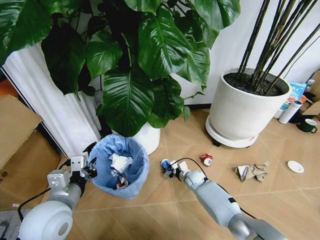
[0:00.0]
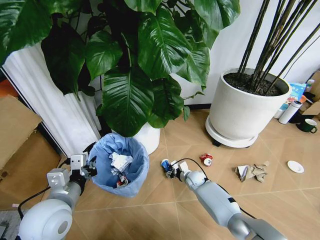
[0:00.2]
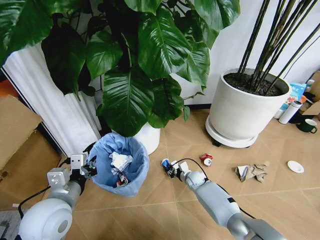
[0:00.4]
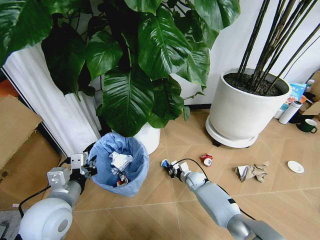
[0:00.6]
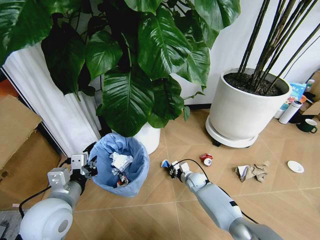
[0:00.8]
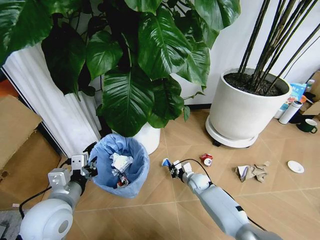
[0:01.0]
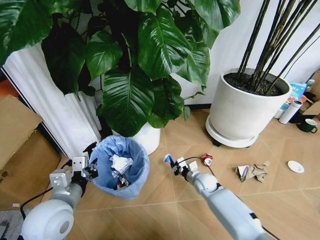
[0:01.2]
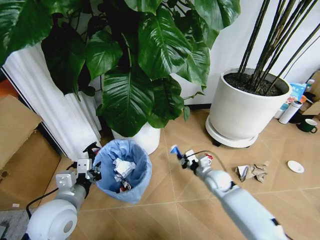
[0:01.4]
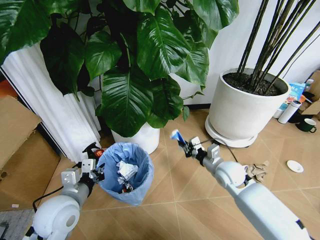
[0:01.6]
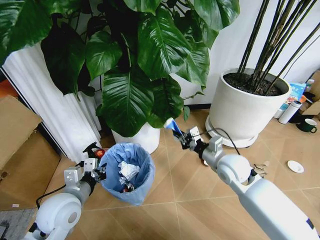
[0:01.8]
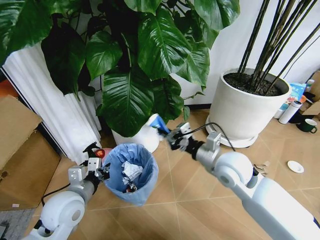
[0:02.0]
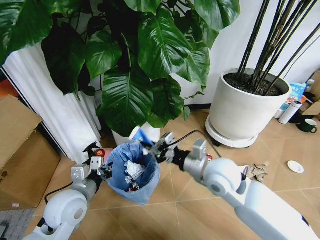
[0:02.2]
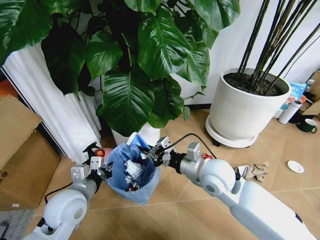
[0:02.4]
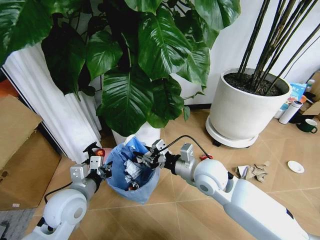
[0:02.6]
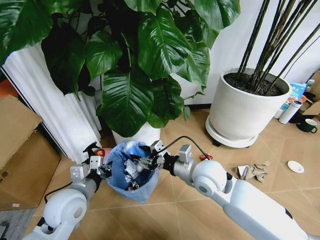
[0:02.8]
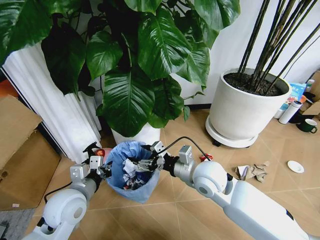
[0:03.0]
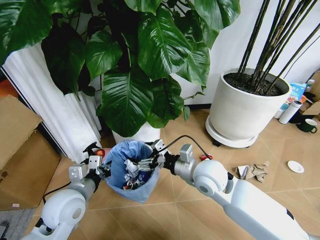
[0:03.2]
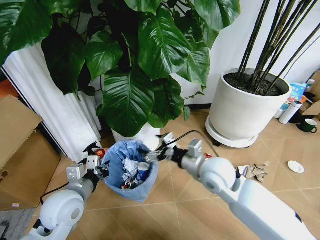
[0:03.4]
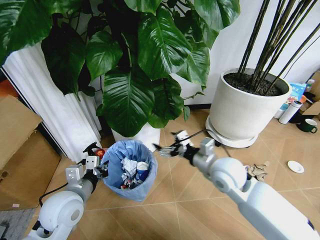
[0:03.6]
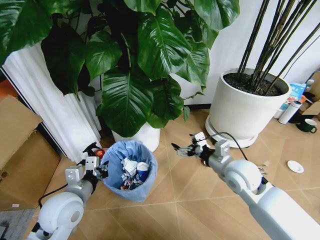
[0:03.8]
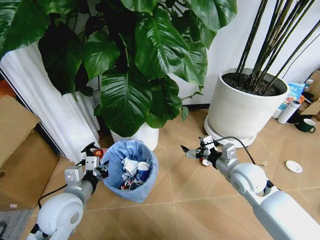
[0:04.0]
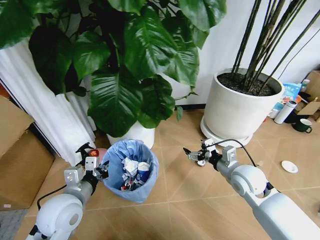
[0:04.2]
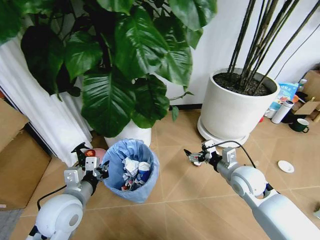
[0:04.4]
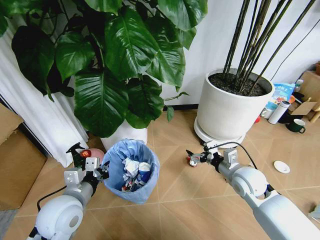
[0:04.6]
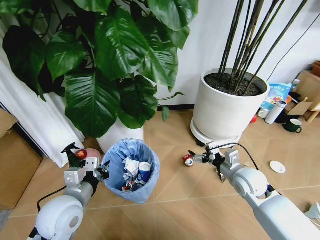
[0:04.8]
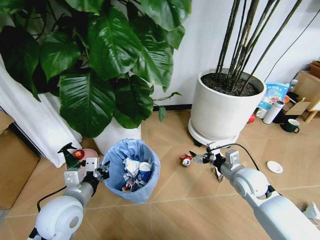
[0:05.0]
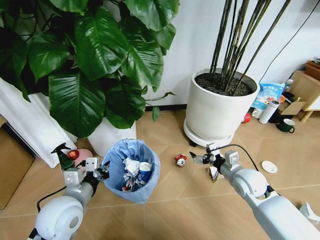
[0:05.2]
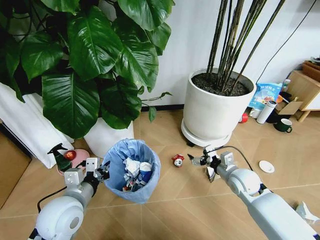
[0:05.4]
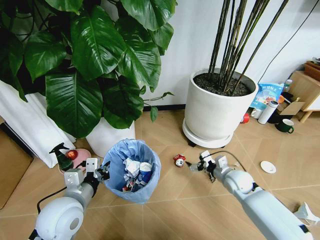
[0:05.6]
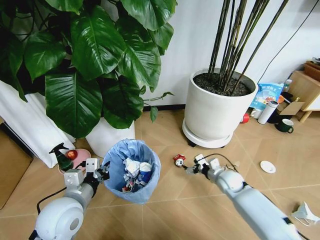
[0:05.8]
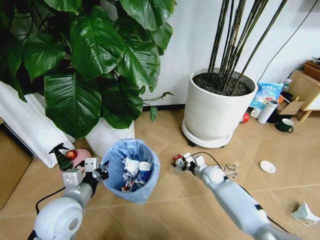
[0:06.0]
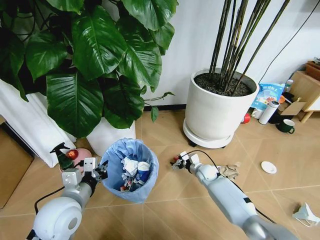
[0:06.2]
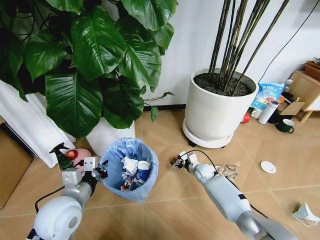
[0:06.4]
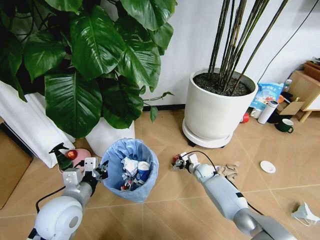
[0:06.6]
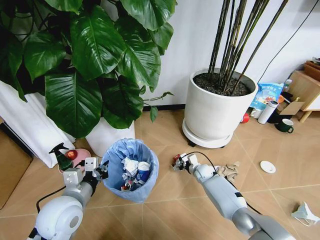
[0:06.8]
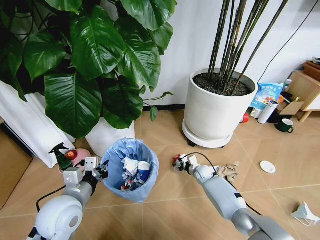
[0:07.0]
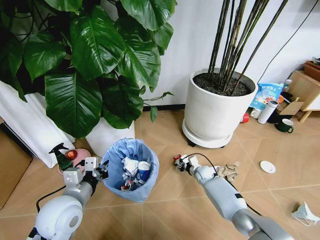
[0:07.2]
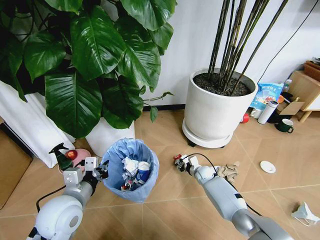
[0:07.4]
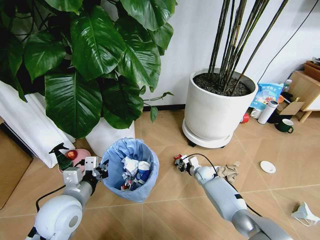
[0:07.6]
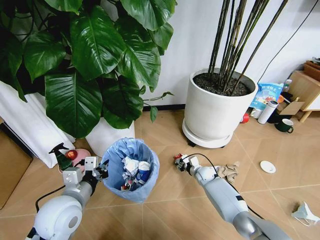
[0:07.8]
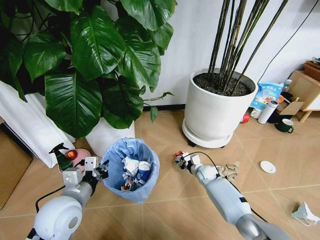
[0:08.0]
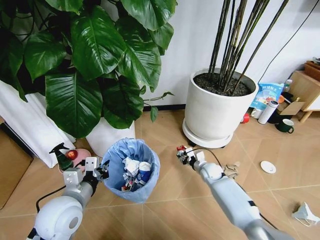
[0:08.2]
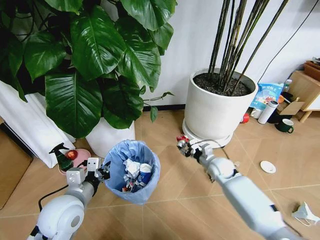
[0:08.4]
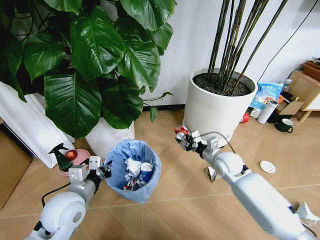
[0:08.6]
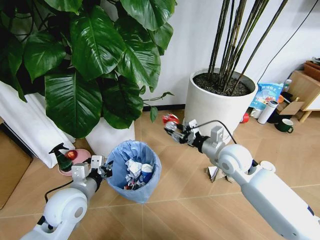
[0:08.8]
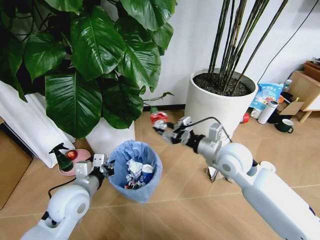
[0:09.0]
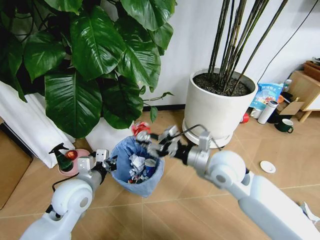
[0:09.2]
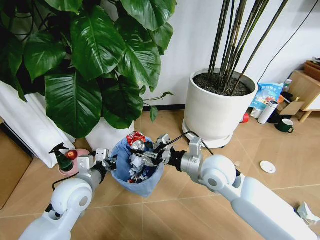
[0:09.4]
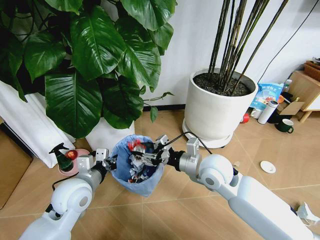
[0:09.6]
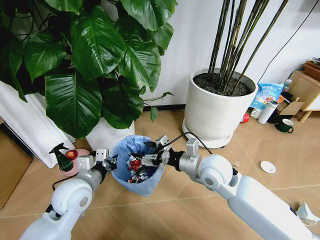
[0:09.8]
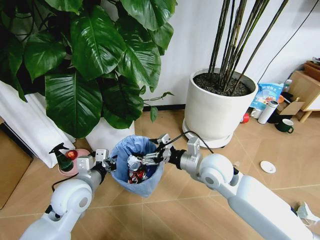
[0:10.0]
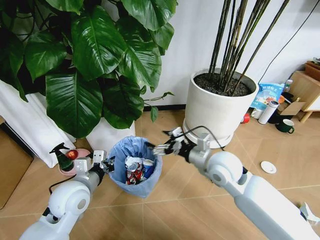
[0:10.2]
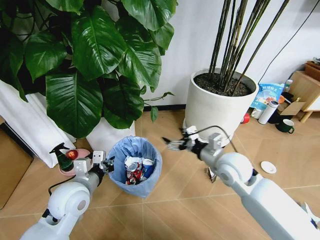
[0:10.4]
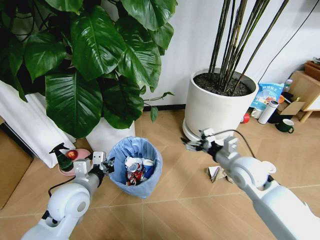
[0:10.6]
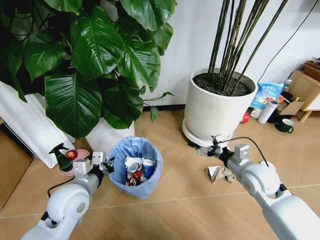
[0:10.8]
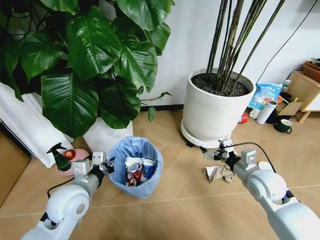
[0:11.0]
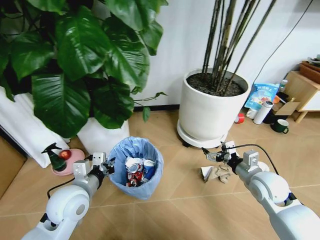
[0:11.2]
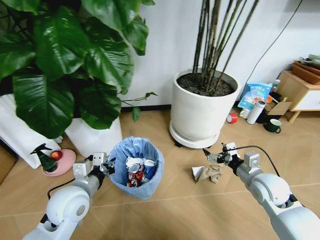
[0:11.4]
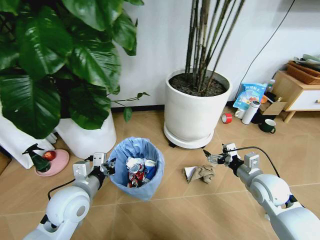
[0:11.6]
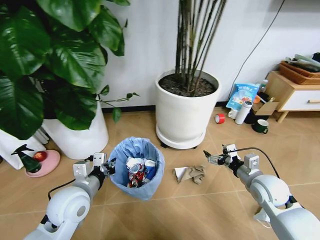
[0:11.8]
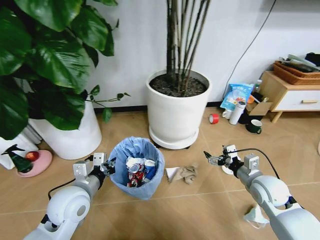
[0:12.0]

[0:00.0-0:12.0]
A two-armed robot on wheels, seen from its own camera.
Task of the whole recording: Pick up the trash bin and place the garbage on the floor into it.
0:00.0 to 0:01.6: The right gripper travels upward by roughly 20 cm, and closes.
0:01.6 to 0:03.0: The right gripper goes approximately 15 cm to the left, upward and backward, and opens.
0:03.0 to 0:04.4: The right gripper goes about 15 cm to the right.
0:04.4 to 0:06.0: The right gripper heads downward and forward, covering some 20 cm.
0:06.0 to 0:07.6: The right gripper moves downward, roughly 5 cm, and closes up.
0:07.6 to 0:09.0: The right gripper is displaced upward by approximately 35 cm.
0:09.0 to 0:10.4: The right gripper opens its fingers.
0:10.4 to 0:12.0: The right gripper is displaced to the right and downward by approximately 15 cm.

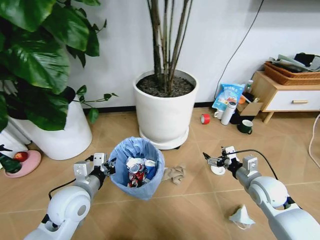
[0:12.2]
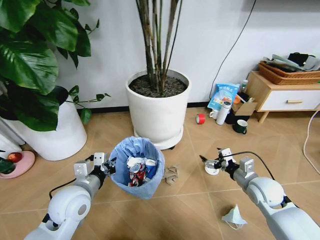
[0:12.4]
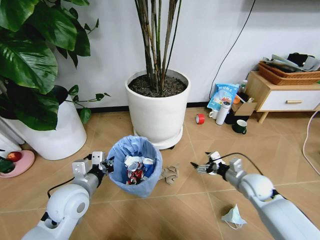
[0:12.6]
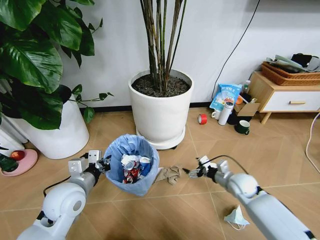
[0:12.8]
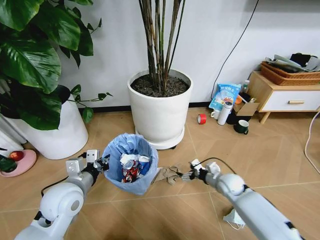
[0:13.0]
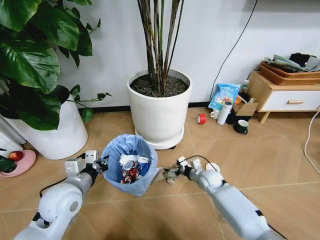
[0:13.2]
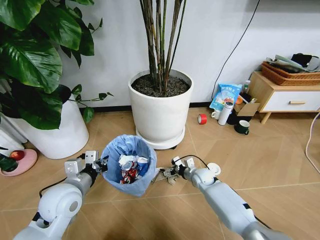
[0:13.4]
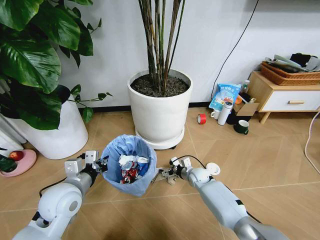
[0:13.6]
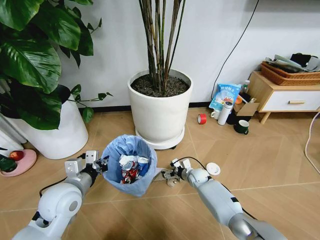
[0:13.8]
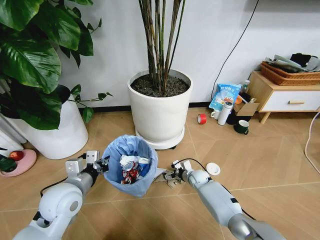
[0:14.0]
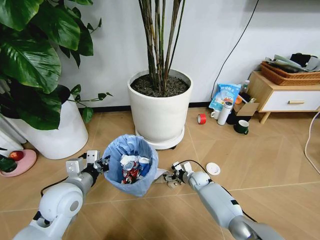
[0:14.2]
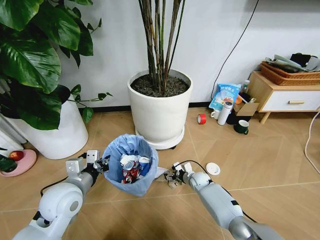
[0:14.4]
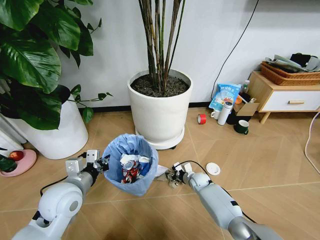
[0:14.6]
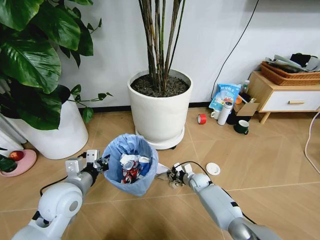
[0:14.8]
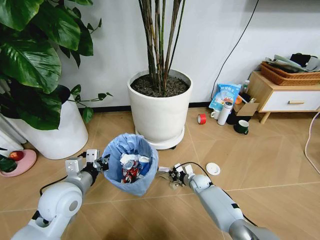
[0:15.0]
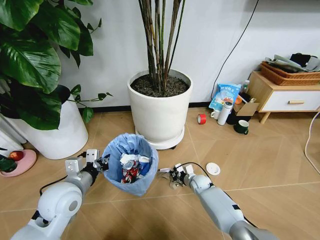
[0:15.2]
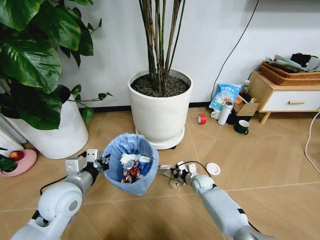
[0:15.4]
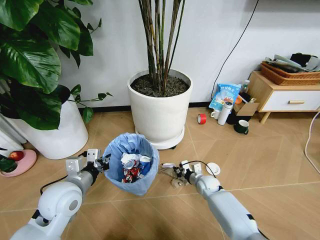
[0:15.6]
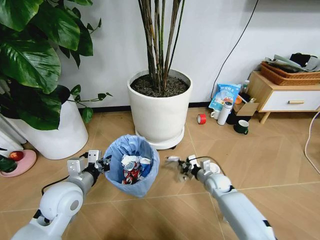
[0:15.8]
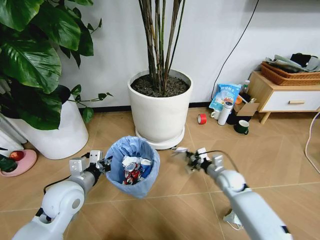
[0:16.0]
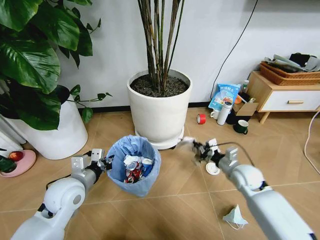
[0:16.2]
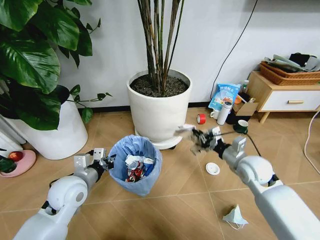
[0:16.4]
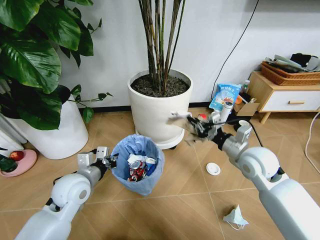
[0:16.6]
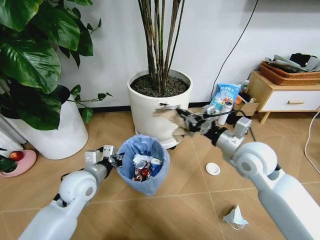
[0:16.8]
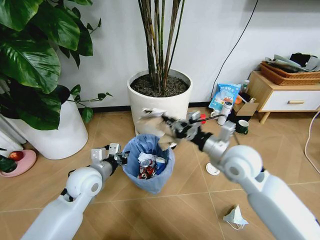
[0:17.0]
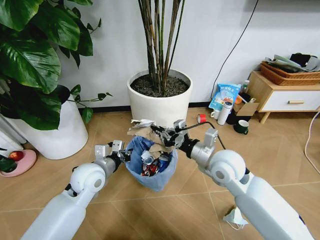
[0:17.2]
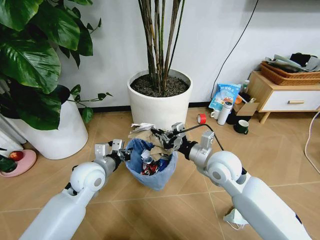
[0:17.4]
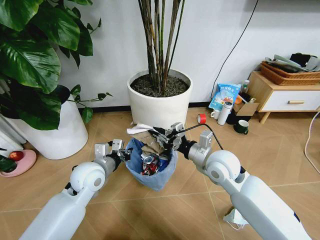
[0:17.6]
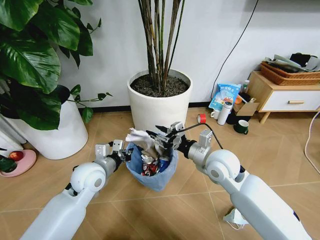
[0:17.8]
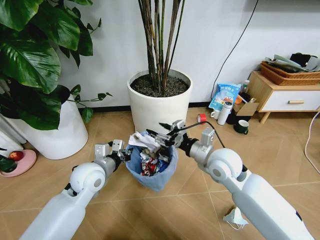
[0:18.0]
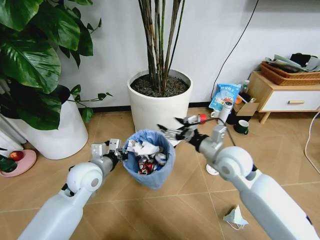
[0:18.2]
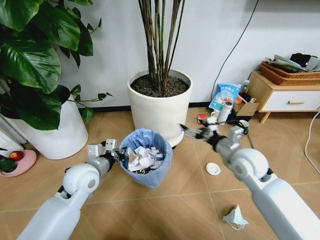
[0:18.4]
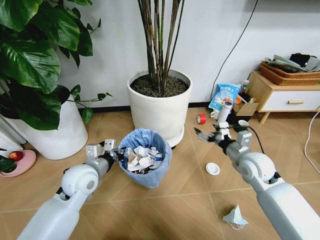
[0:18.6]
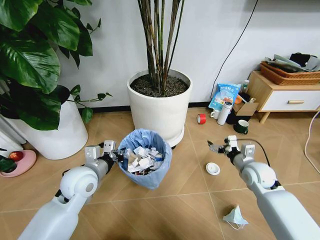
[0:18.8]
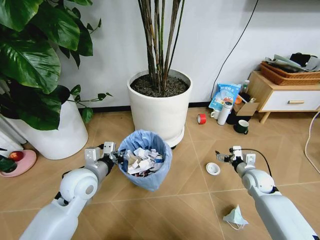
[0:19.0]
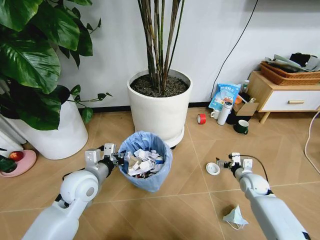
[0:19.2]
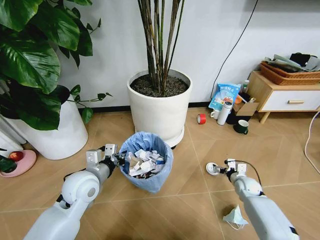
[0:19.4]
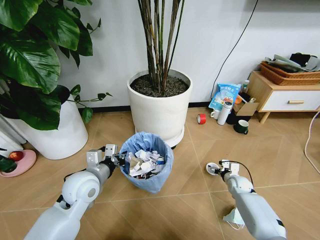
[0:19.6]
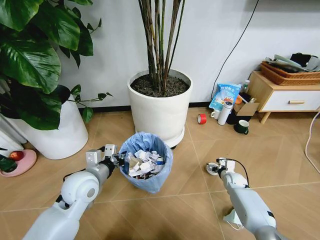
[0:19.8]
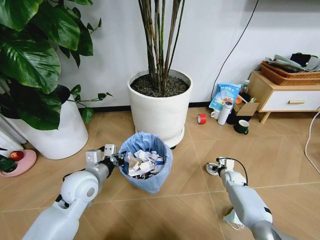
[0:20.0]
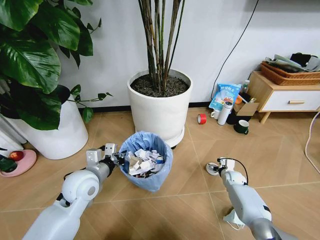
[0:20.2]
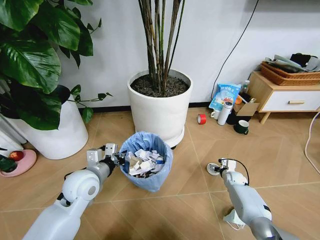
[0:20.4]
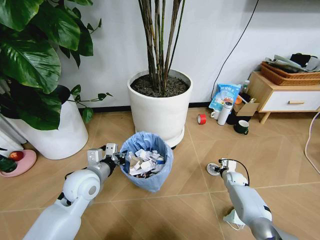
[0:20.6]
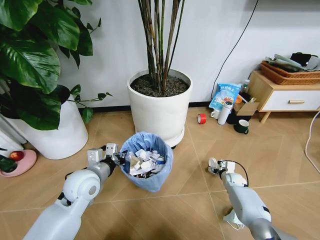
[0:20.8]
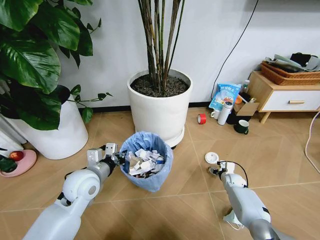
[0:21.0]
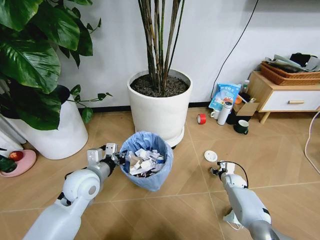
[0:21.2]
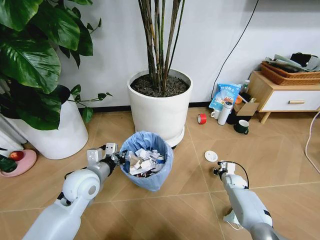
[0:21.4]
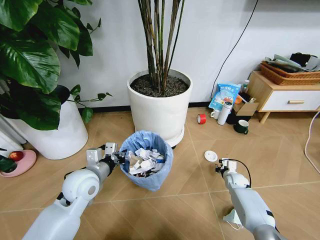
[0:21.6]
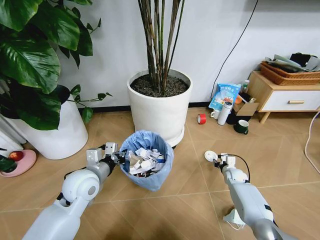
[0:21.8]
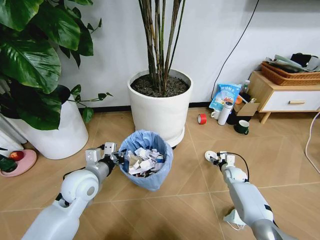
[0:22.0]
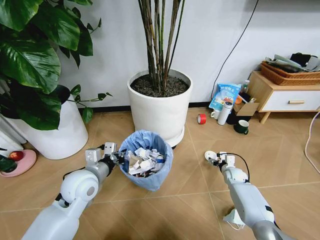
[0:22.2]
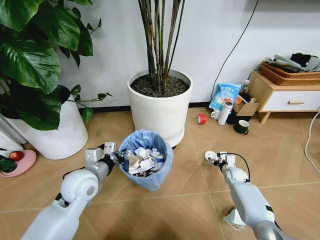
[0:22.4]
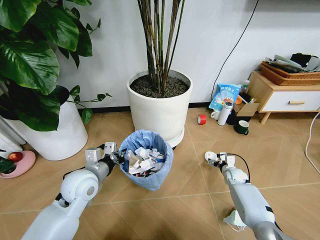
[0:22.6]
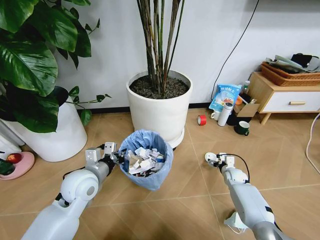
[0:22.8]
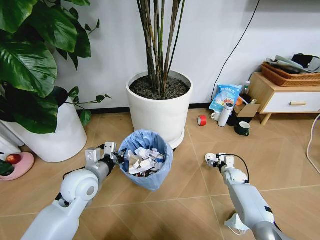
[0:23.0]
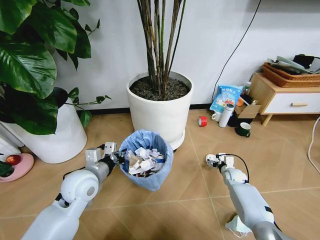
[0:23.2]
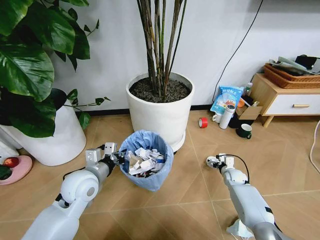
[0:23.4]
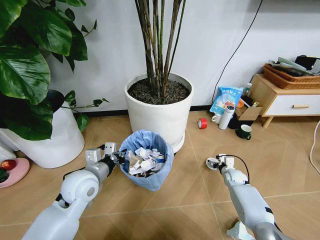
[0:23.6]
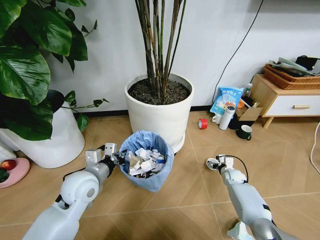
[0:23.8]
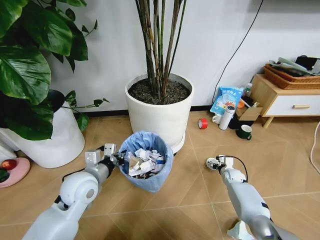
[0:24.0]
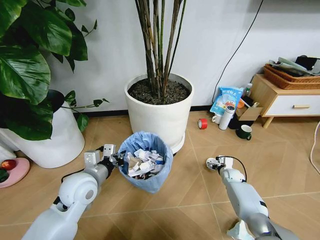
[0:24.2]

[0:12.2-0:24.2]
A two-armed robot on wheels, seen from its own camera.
Task of the whole recording: Pick up the trash bin and place the garbage on the floor into it.
0:12.2 to 0:13.8: The right gripper moves downward, to the left and forward, about 30 cm.
0:13.8 to 0:15.2: The right gripper closes its fingers.
0:15.2 to 0:16.6: The right gripper shifts roughly 35 cm upward.
0:16.6 to 0:18.2: The right gripper heads to the left, covering roughly 5 cm, and opens.
0:18.2 to 0:19.8: The right gripper shifts roughly 35 cm downward and to the right.
0:19.8 to 0:21.2: The right gripper closes its fingers.
0:21.2 to 0:22.6: The right gripper opens up.
